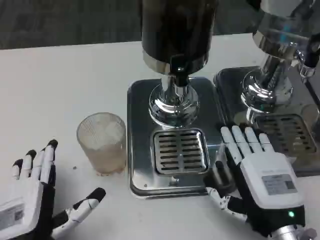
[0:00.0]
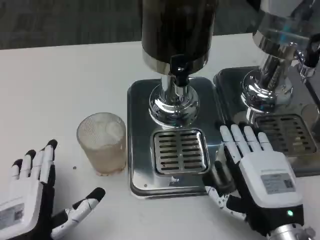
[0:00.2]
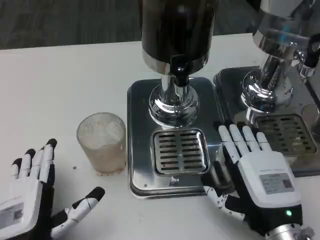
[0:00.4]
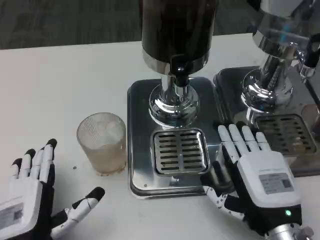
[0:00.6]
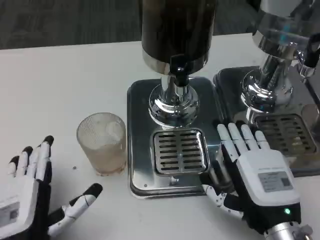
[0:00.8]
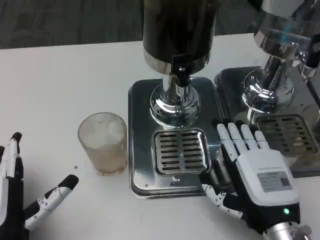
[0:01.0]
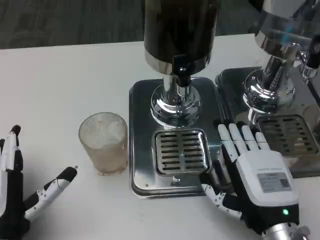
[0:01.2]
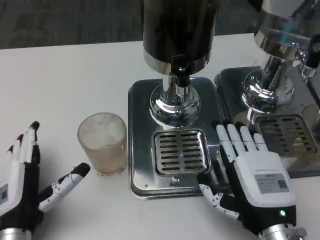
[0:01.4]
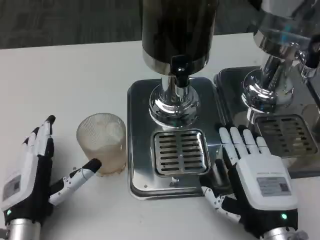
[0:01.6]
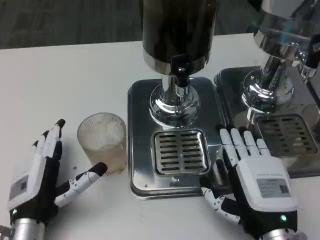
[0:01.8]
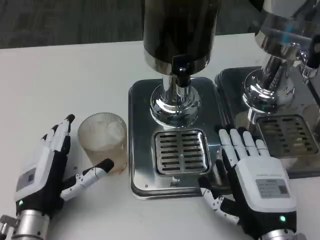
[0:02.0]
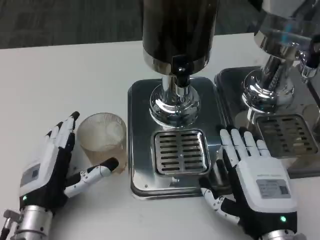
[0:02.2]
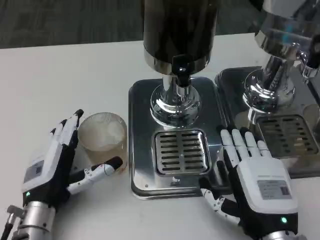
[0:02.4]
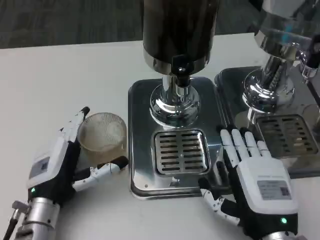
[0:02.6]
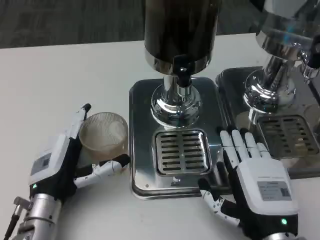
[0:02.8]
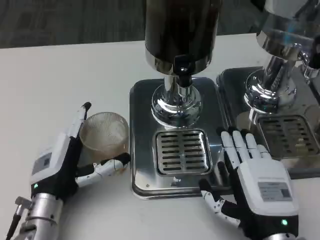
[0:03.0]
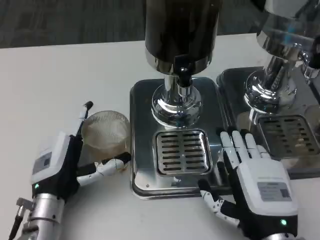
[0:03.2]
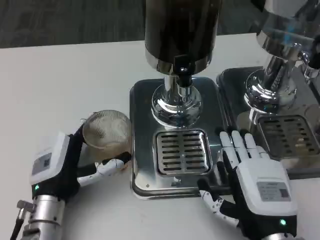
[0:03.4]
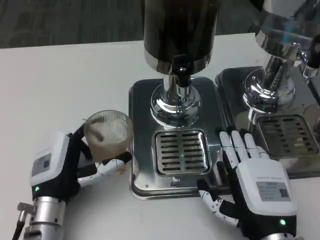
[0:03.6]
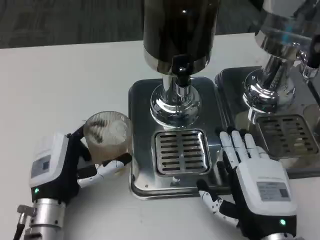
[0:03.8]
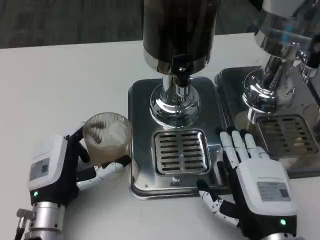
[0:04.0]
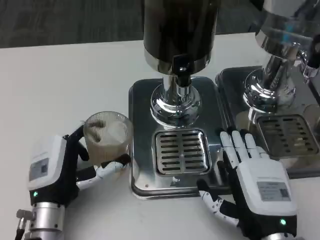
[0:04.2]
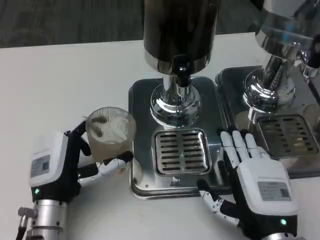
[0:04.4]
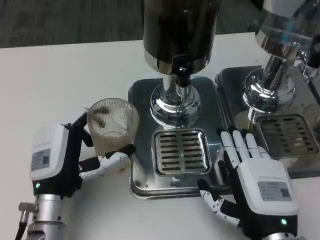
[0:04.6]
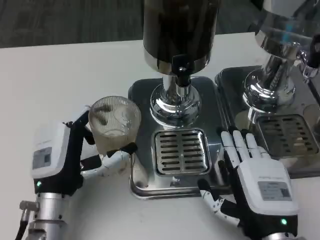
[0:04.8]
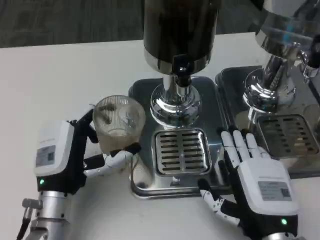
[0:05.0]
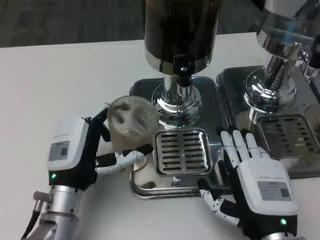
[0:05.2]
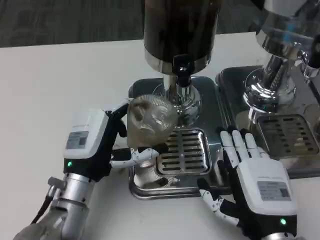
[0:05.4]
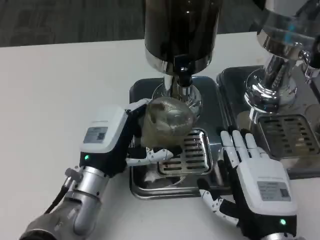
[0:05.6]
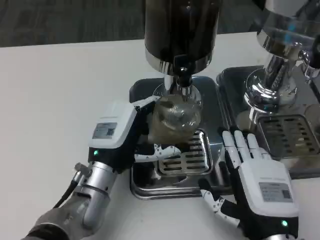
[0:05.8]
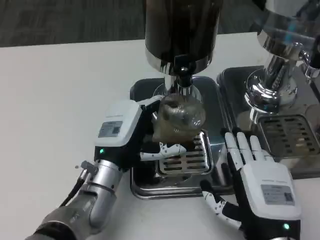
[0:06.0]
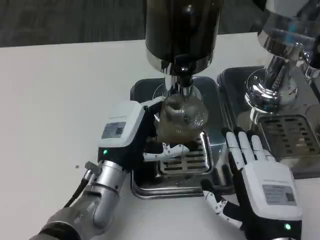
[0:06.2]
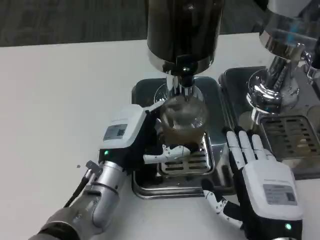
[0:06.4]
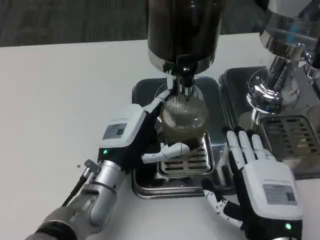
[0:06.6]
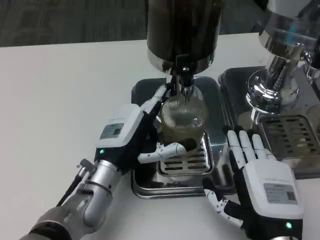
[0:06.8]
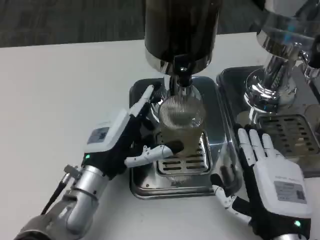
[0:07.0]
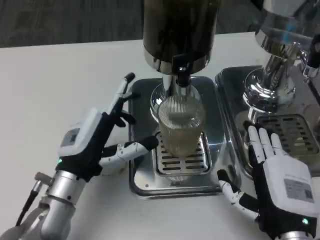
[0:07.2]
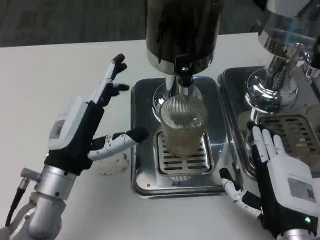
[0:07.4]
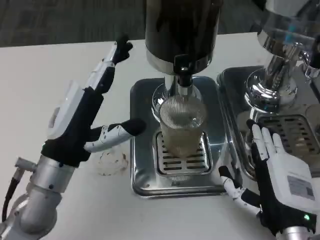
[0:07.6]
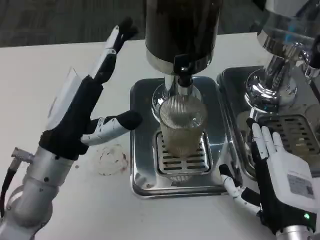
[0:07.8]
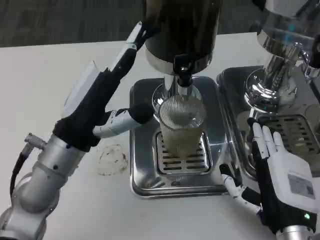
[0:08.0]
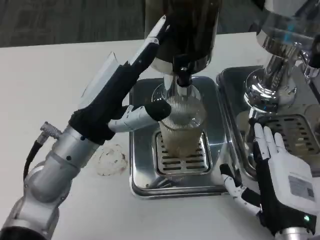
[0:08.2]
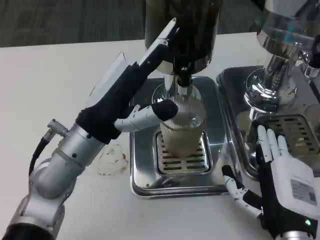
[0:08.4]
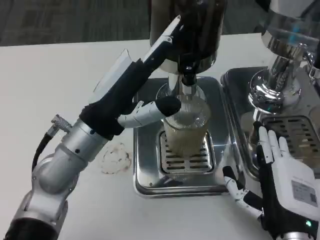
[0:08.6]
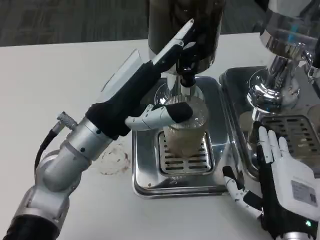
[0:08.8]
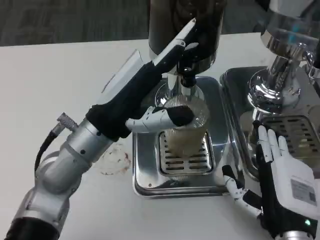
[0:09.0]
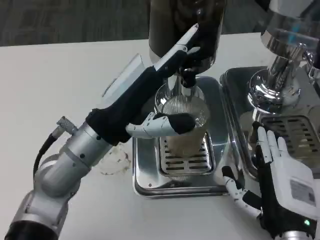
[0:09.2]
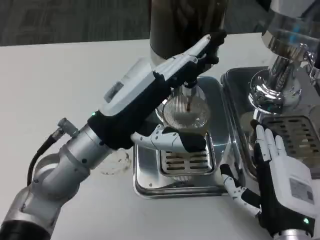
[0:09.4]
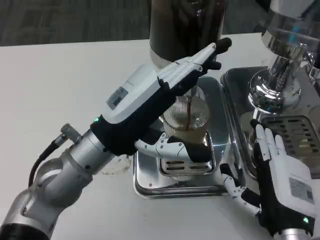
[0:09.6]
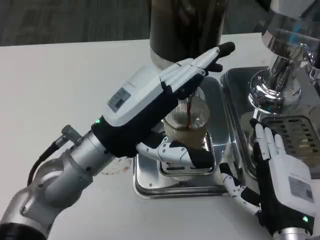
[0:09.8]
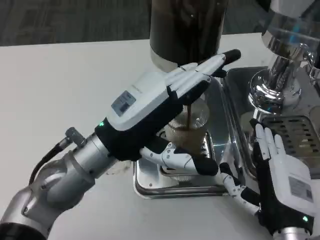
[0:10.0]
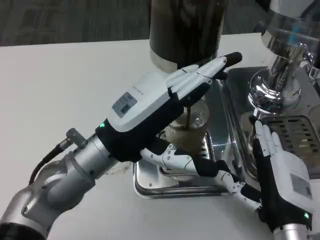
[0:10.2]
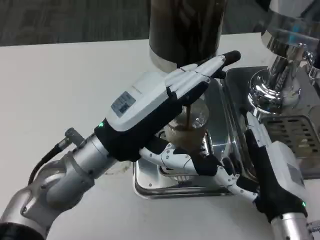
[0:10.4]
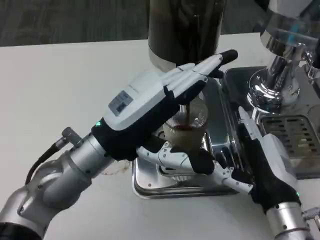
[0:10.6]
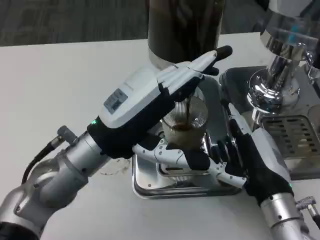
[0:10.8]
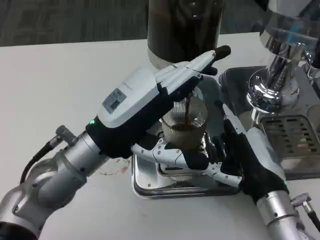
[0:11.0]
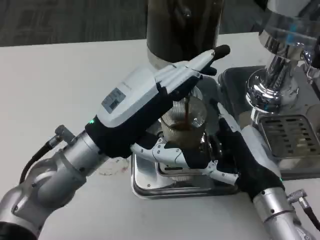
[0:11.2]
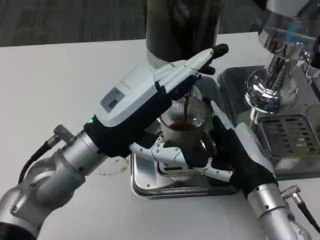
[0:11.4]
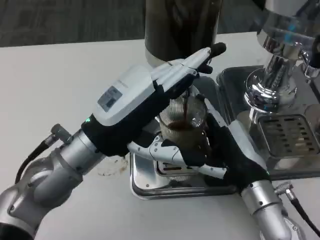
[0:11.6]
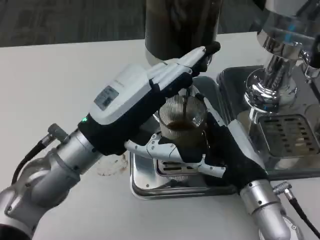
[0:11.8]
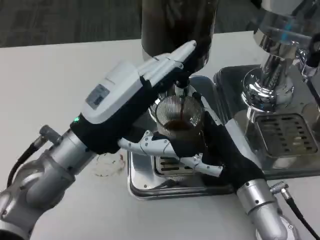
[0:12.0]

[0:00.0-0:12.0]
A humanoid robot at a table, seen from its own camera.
Task of the whole recording: Grasp the cup under the faucet to collect the drink, then remove the cup.
0.0 to 1.6 s: The left hand shifts roughly 5 cm forward.
3.0 to 4.4 s: There are only small adjustments of the hands.
4.4 to 6.0 s: The left hand moves to the right and forward, about 10 cm.
6.0 to 7.6 s: The left hand shifts about 10 cm to the left and upward.
7.6 to 9.0 s: The left hand moves about 5 cm.
10.4 to 12.0 s: The right hand shifts roughly 5 cm forward.

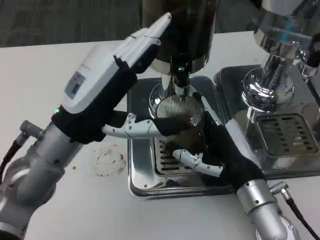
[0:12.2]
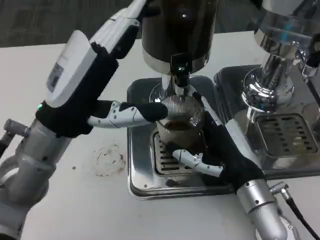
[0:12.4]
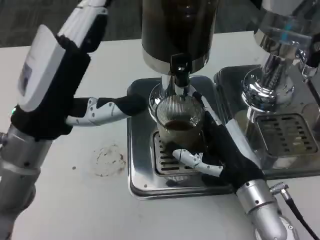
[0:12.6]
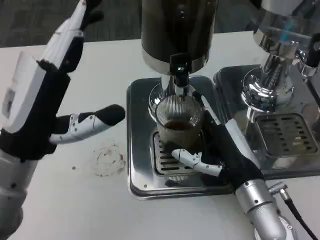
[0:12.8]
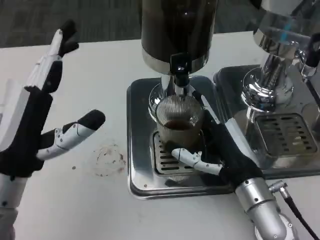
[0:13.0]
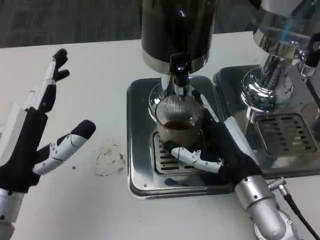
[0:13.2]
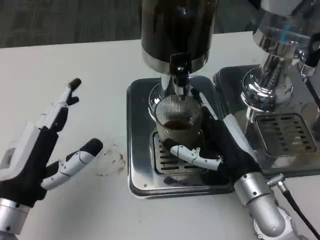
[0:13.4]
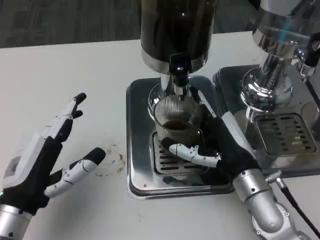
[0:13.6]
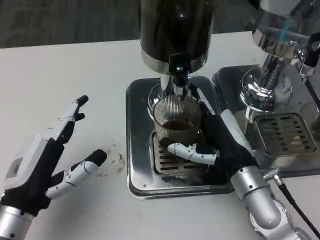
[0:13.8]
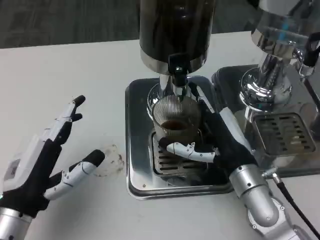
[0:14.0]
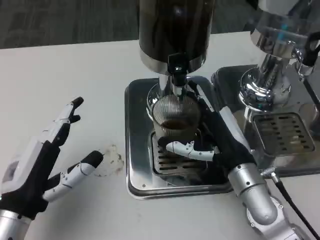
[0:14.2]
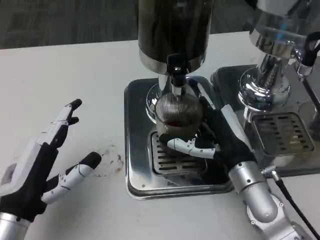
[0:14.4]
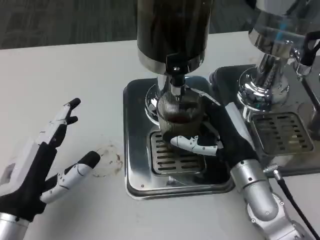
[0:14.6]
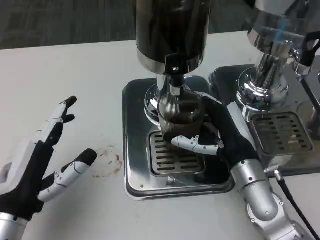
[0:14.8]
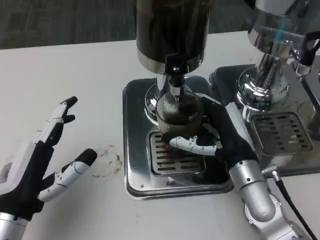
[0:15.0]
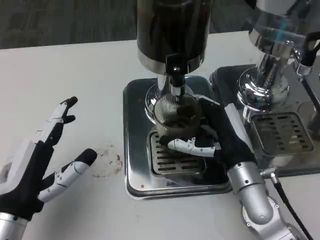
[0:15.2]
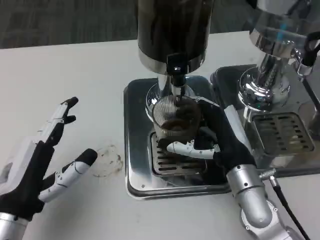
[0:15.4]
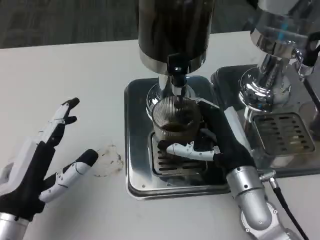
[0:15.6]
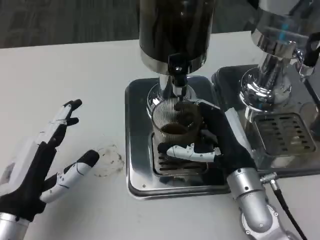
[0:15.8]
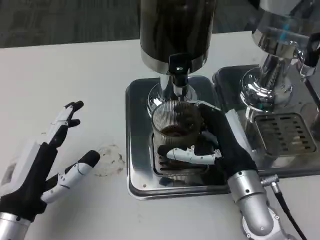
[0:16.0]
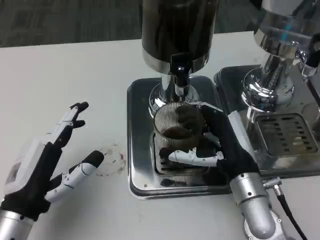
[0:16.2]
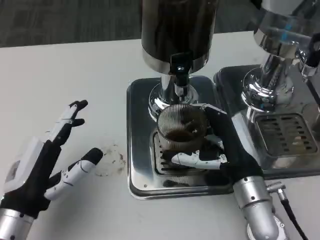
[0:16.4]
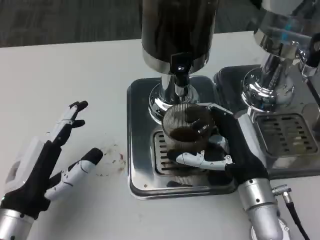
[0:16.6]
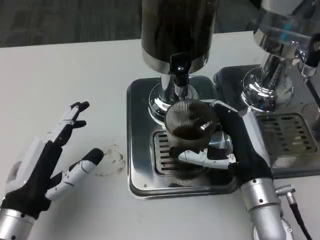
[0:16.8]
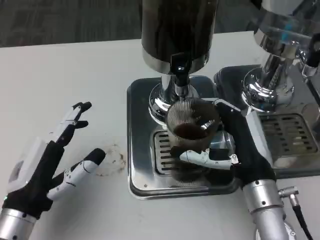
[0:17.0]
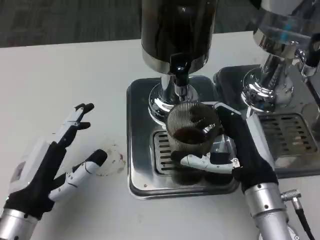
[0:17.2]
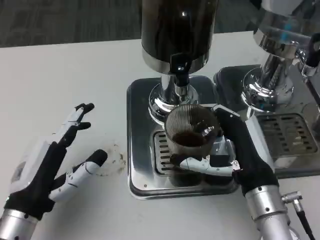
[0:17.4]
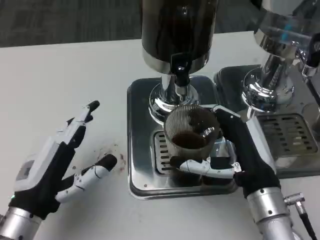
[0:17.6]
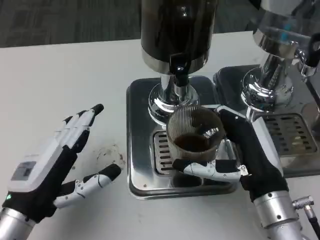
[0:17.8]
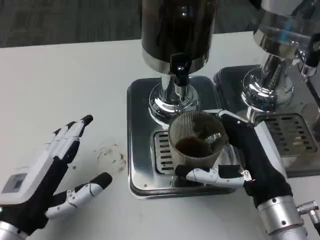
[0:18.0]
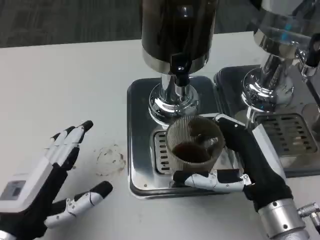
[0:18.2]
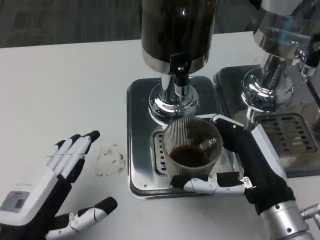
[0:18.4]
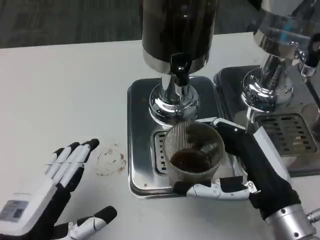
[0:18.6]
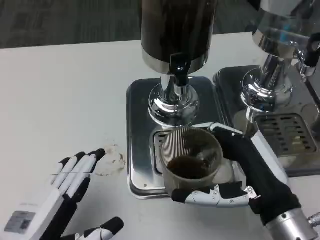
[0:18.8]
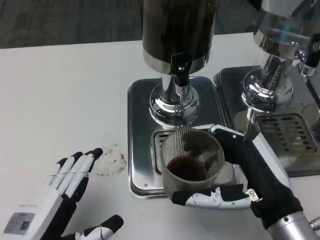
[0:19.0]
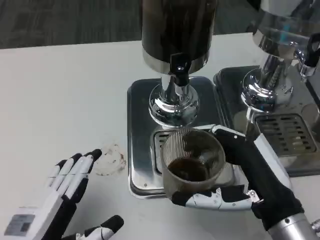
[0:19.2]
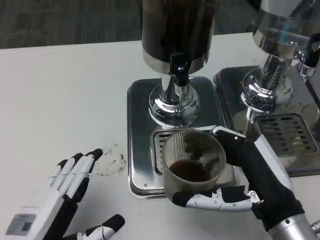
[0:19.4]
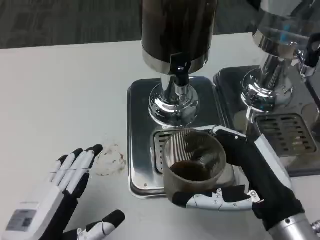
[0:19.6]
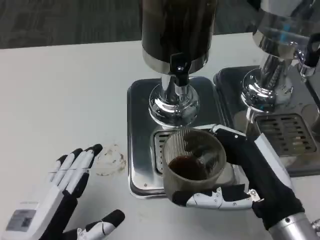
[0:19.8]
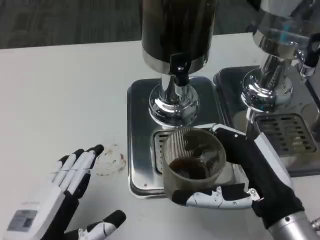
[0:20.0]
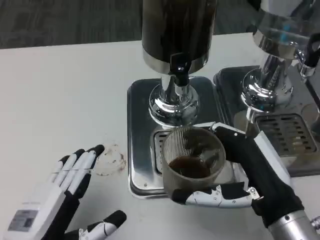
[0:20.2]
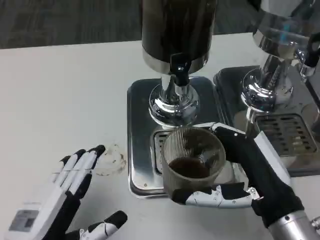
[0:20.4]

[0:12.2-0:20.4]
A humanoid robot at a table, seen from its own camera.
Task of the whole recording: Grasp the cup under the faucet to collect the drink, then remove the cup.
12.2 to 13.8 s: The left hand shifts roughly 15 cm downward, backward and to the left.
13.8 to 15.4 s: There are only small adjustments of the hands.
17.2 to 18.8 s: The two hands go roughly 5 cm backward.
18.8 to 20.4 s: The two hands keep their place.

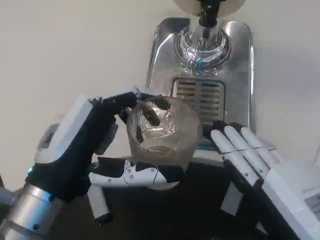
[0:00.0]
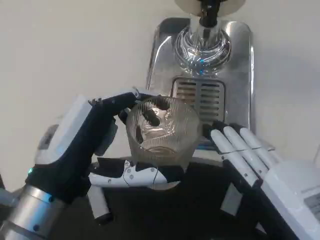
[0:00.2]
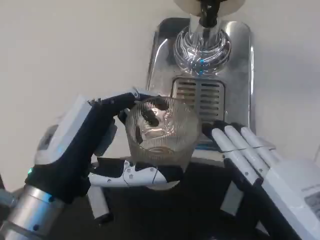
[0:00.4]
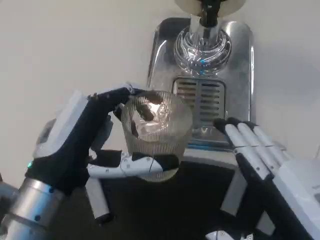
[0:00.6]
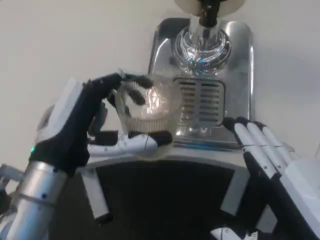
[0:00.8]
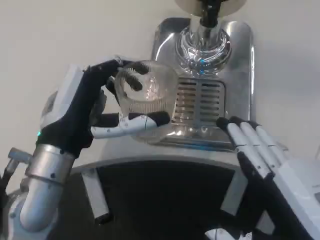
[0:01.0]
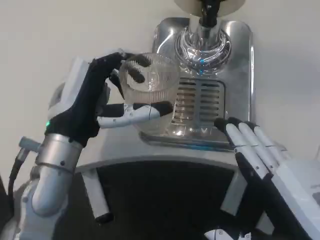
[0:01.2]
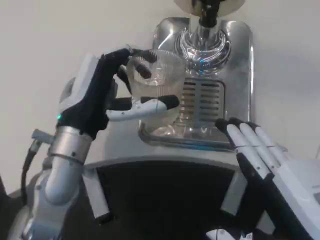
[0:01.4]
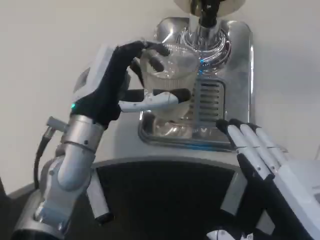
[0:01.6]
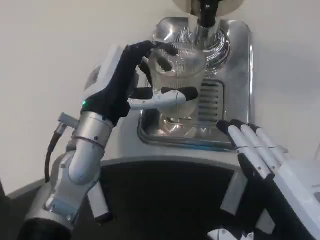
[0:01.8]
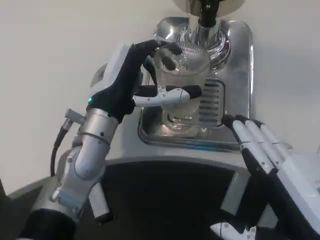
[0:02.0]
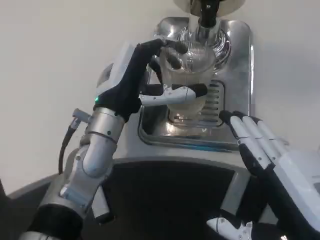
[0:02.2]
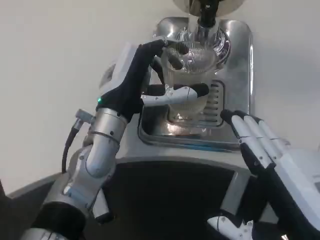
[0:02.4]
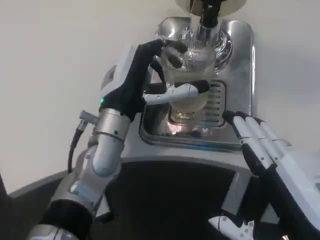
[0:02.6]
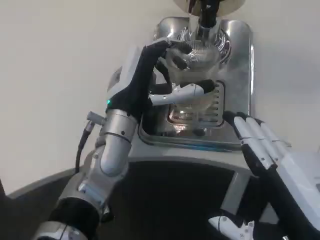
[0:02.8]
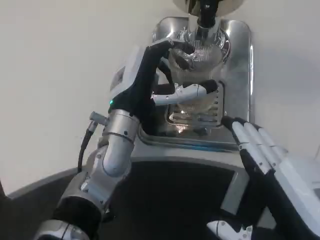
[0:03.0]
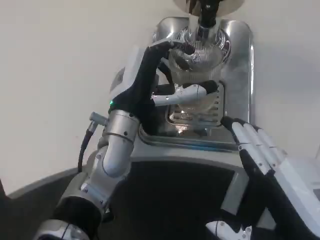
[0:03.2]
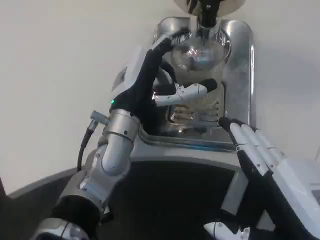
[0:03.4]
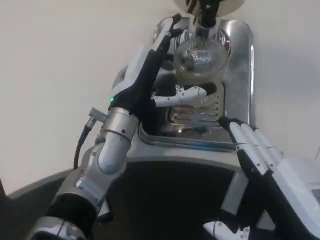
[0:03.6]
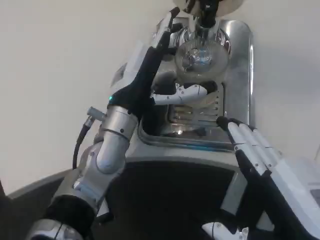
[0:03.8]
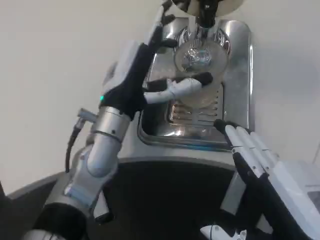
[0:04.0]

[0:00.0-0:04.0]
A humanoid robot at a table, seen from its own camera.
Task of the whole recording: Grasp the cup under the faucet to collect the drink, then remove the cup.
0.0 to 1.4 s: The left hand is displaced forward by approximately 10 cm.
1.4 to 2.6 s: The left hand changes place by about 5 cm.
2.6 to 4.0 s: The hands move only a little.
